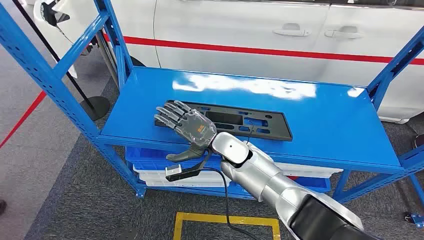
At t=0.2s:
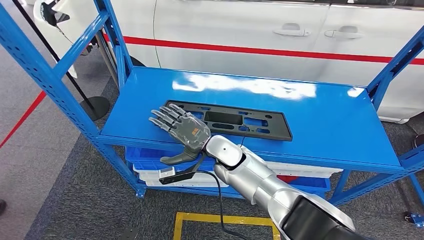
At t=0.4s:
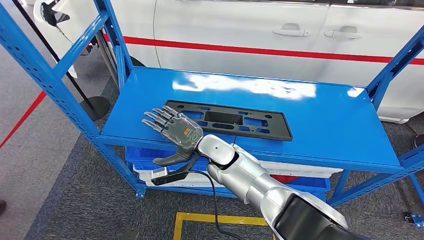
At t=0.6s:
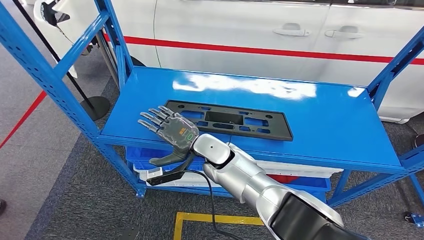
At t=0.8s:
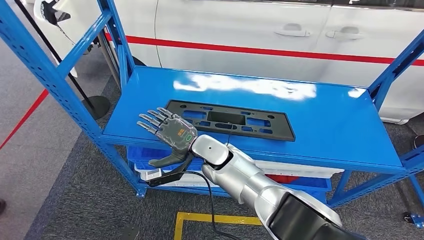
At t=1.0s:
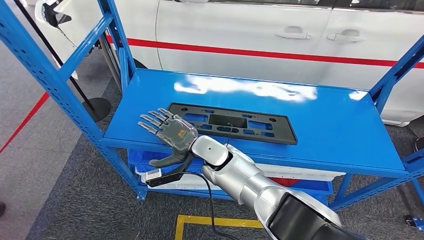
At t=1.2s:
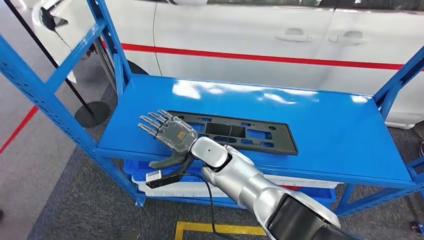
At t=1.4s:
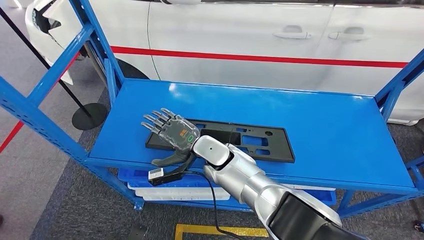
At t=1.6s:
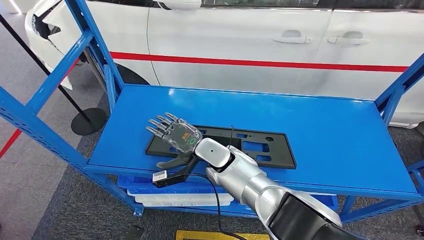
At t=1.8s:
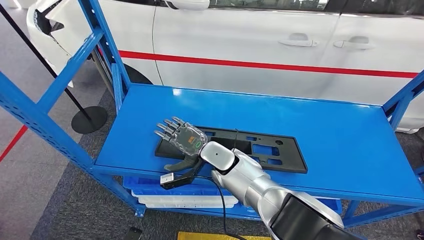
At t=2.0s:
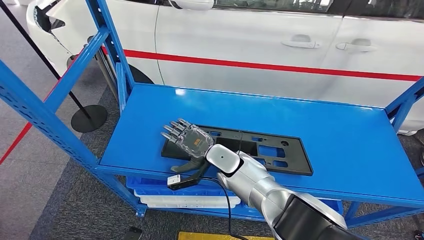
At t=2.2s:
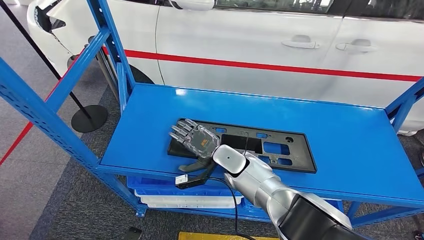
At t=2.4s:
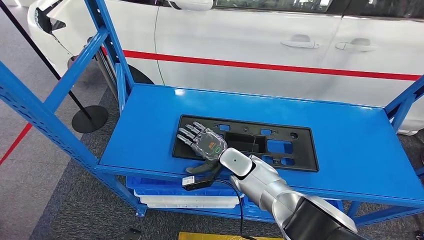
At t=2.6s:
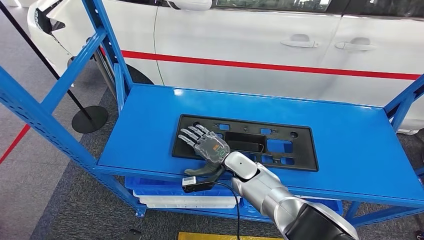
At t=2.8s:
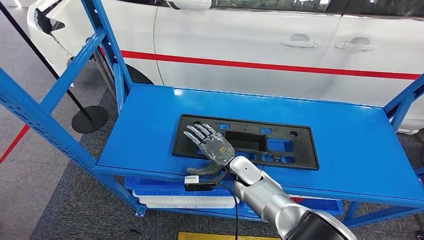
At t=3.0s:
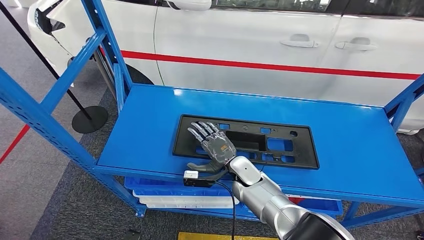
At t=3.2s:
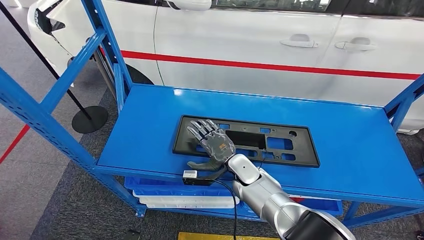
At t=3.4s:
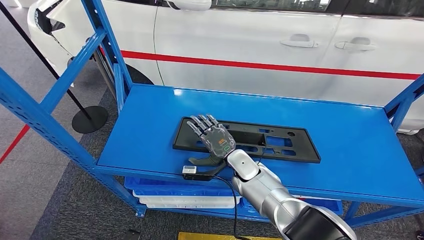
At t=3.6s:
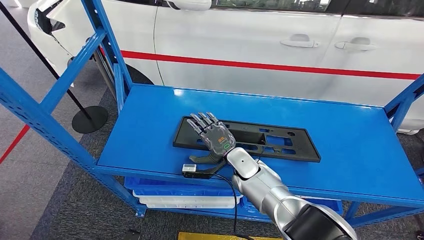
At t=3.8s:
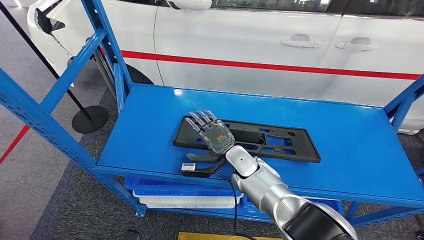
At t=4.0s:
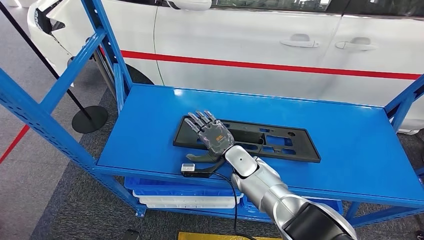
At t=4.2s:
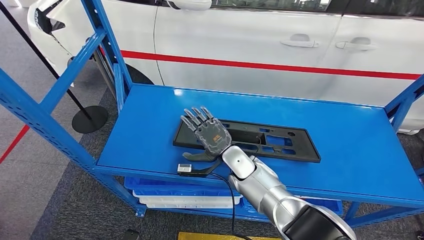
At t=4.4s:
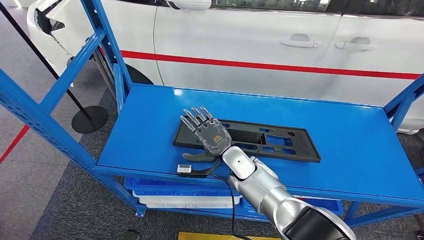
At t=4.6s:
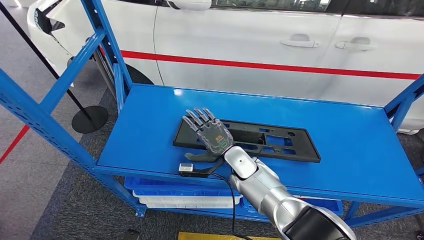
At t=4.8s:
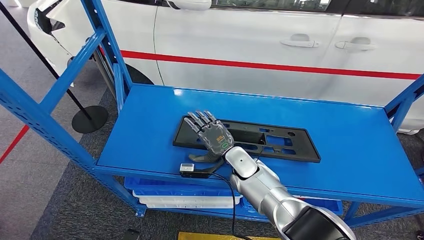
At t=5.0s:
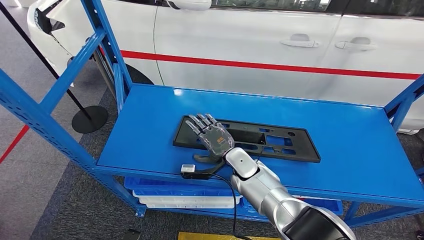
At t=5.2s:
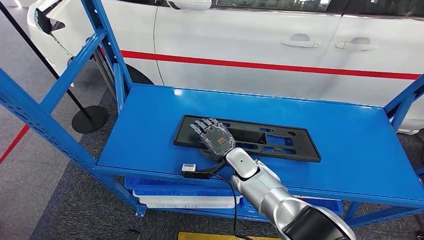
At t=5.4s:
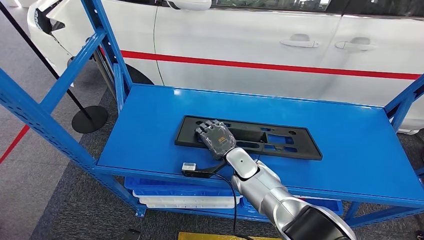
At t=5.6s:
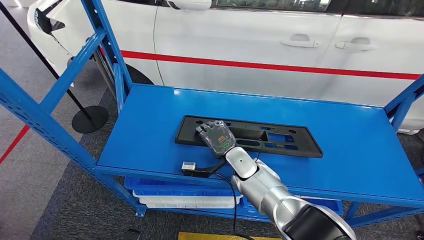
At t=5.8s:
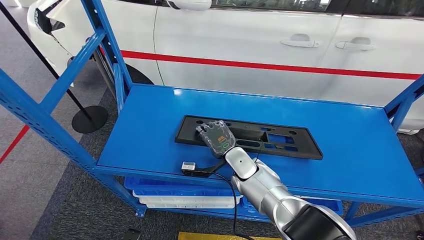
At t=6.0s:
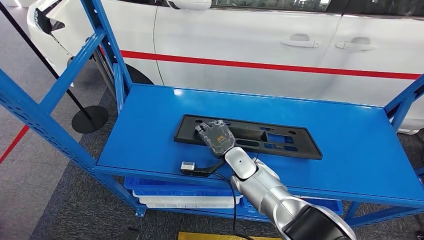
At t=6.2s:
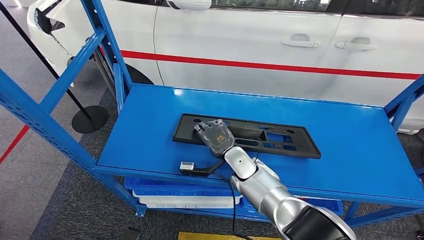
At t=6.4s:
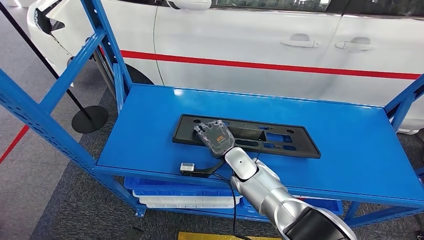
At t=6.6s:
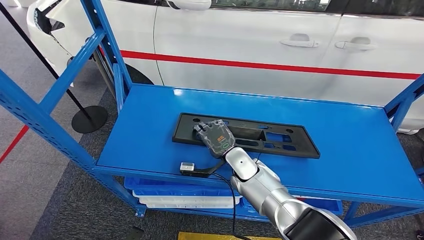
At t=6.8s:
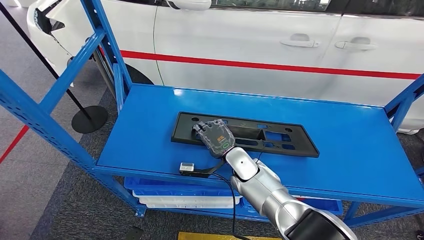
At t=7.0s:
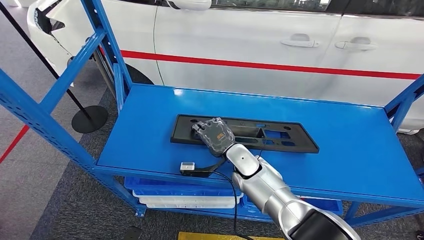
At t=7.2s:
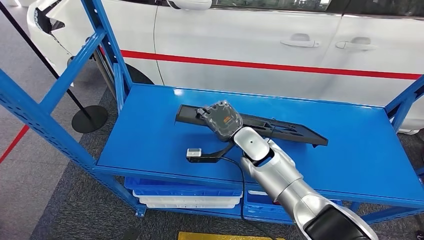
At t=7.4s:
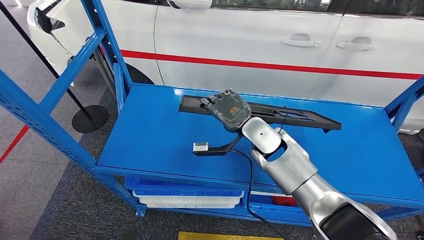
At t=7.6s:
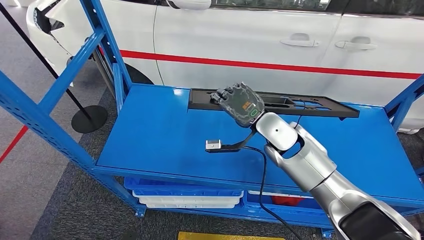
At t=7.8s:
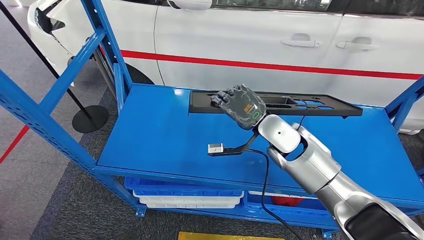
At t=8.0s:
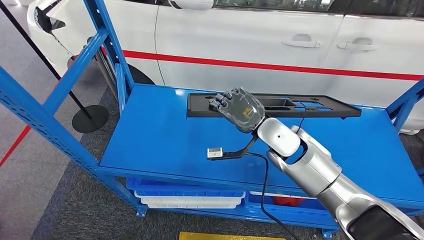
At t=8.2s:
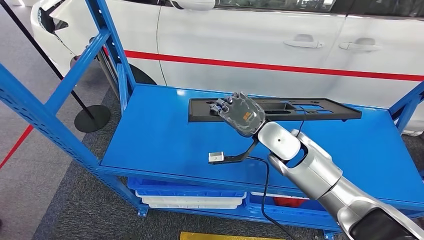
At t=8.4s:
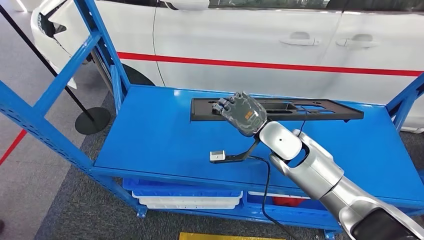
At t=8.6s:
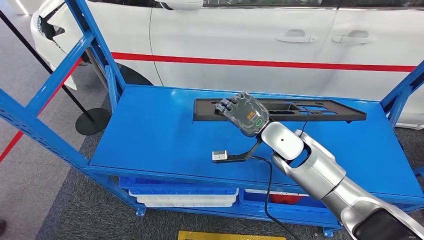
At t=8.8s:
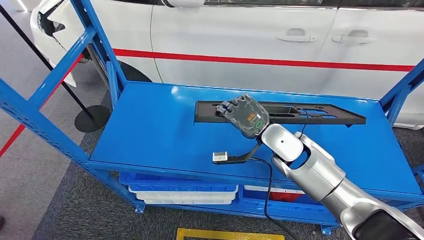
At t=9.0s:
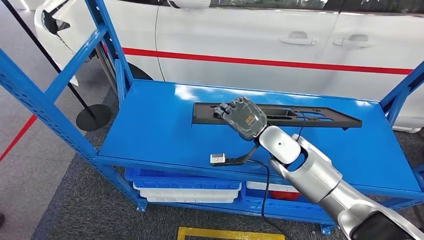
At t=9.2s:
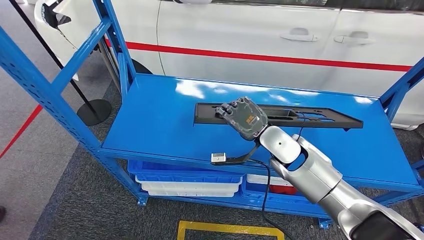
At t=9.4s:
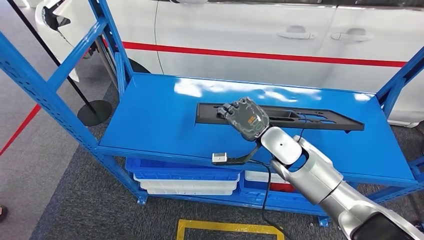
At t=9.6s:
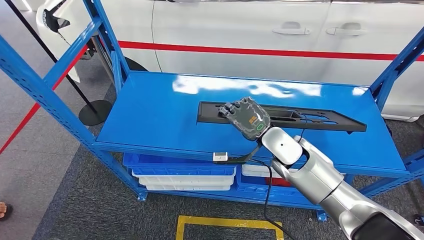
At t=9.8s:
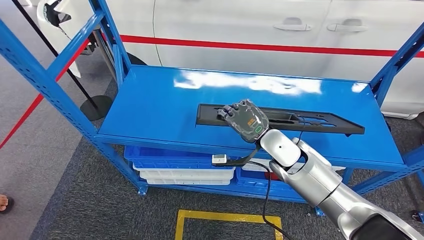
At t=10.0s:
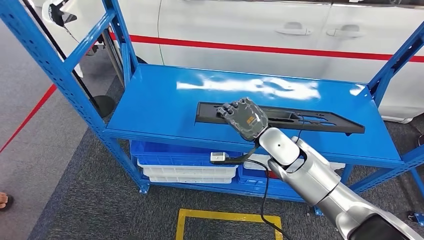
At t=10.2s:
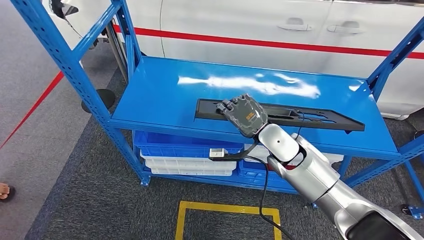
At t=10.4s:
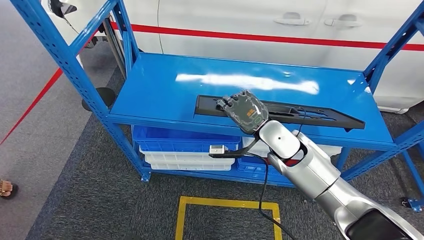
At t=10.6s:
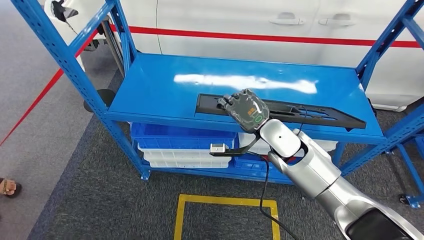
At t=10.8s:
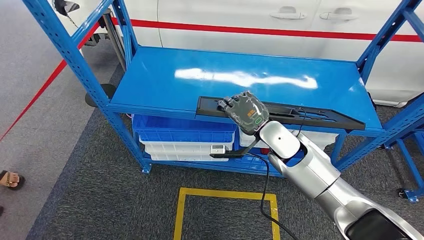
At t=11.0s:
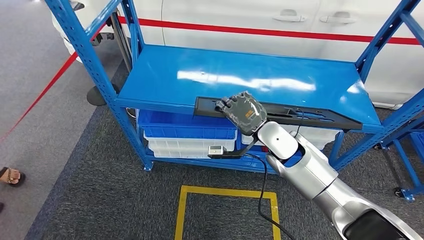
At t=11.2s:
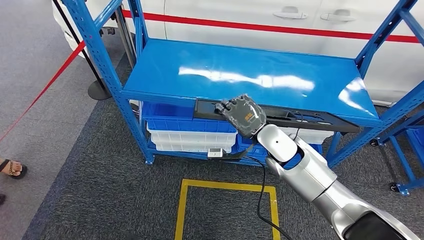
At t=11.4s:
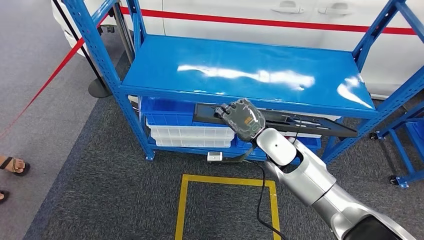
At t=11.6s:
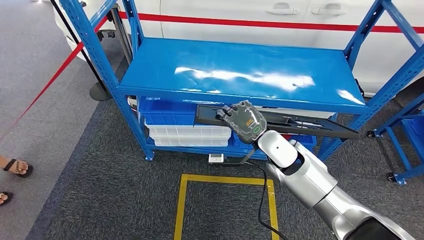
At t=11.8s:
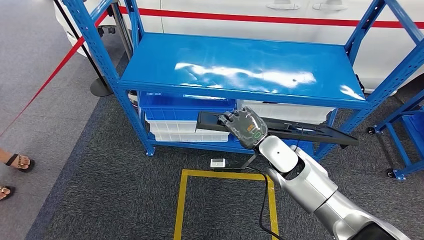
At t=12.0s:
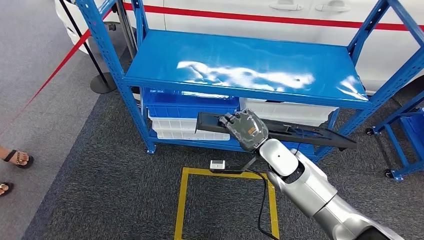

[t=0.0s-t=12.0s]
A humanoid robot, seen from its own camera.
Step, t=0.0s to t=8.2s: Pick up the large material from the shelf.
t=3.0s to t=6.0s: The hands make only small movements.
t=6.0s to t=7.6s: The right hand heads upward and to the right, covering roughly 15 cm.

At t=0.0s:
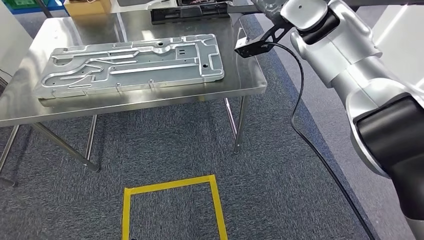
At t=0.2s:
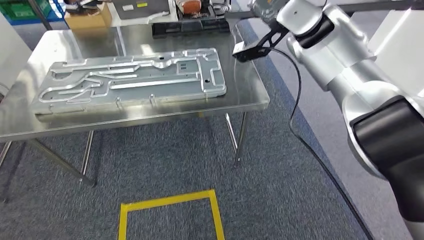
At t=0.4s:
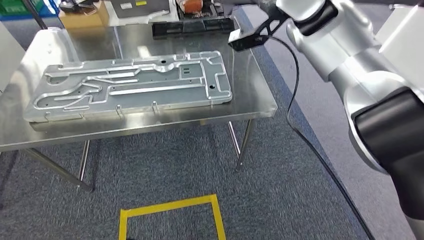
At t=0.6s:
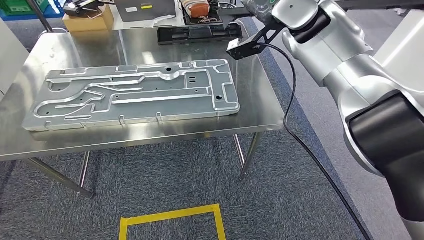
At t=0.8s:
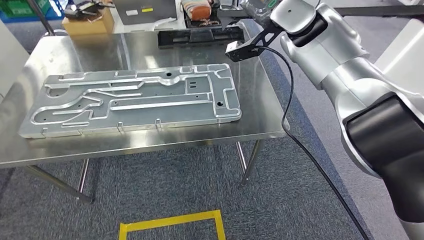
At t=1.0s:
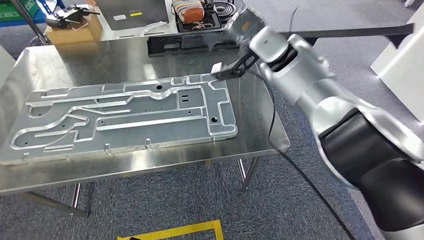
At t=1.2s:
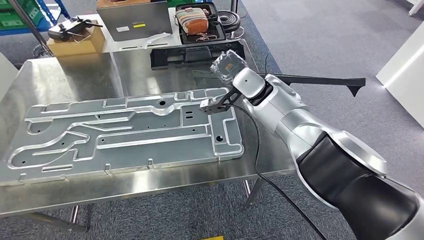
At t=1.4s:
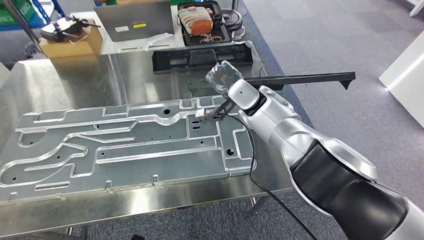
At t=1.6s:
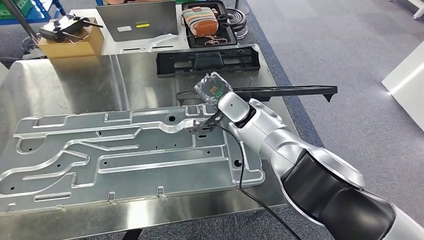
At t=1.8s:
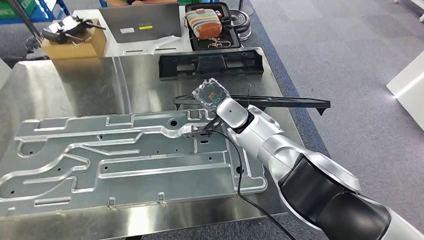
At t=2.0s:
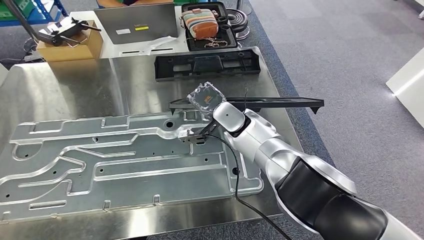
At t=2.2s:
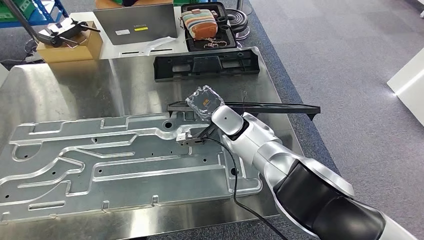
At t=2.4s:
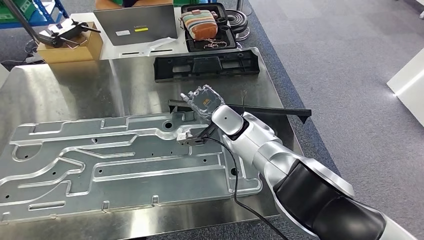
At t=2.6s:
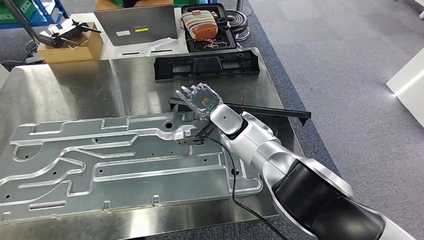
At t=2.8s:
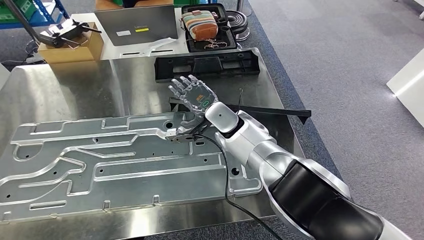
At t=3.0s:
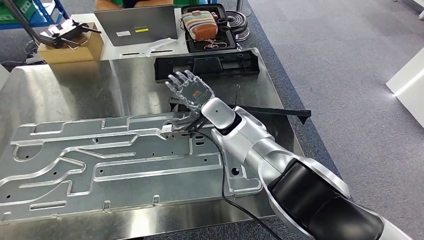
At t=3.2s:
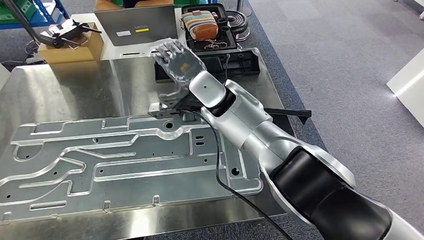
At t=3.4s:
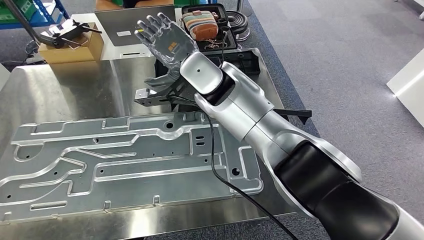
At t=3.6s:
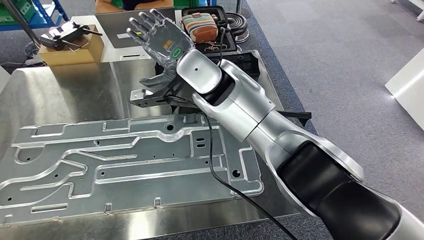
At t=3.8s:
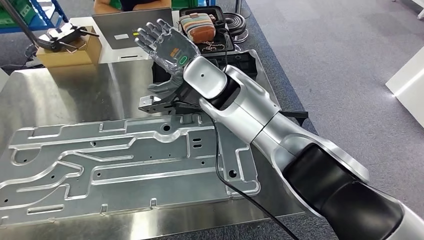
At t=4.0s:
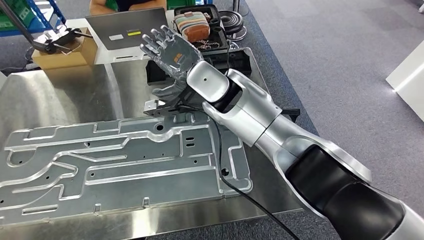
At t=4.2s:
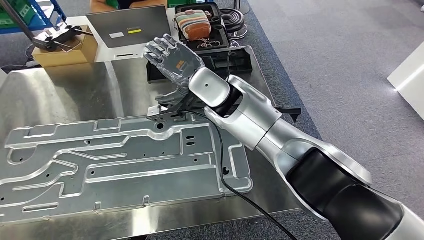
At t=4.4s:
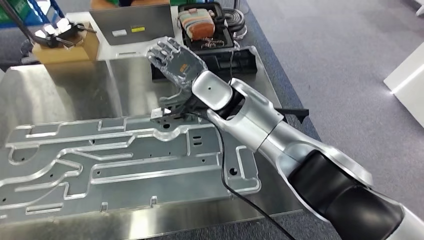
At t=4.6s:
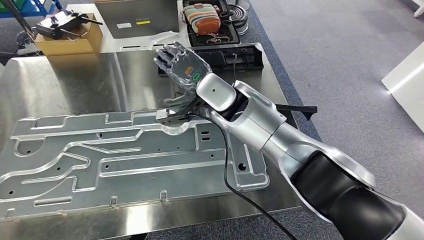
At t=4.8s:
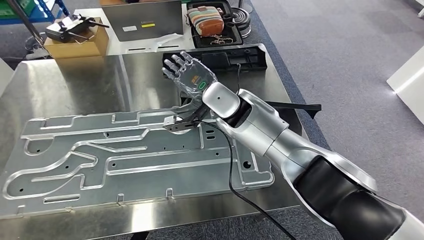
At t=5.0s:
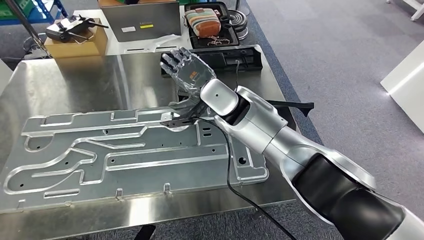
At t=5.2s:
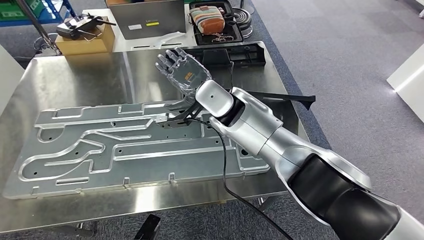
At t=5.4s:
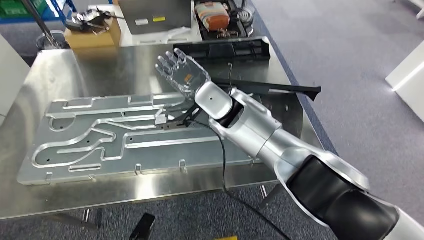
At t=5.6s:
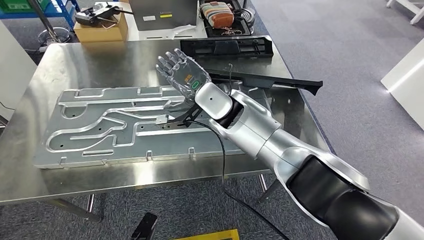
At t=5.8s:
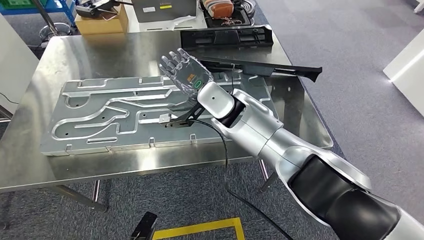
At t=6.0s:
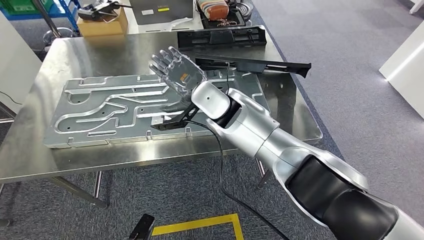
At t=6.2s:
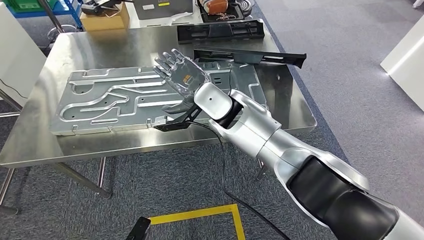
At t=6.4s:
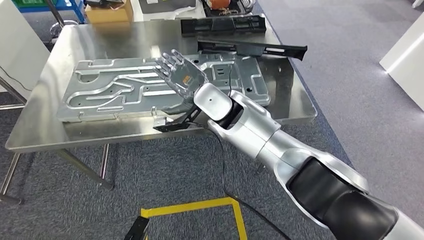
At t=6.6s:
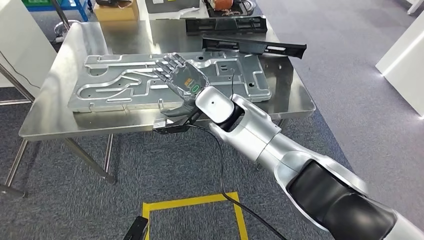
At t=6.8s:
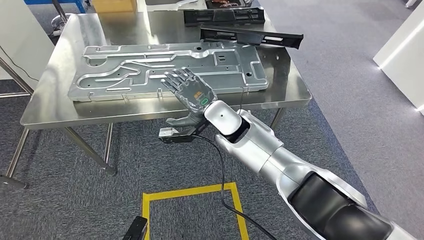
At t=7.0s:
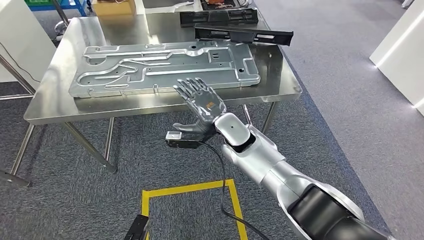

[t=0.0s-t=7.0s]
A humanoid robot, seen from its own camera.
Step, t=0.6s to t=5.4s: Insert the large material into the corresponding slot on the workbench.
